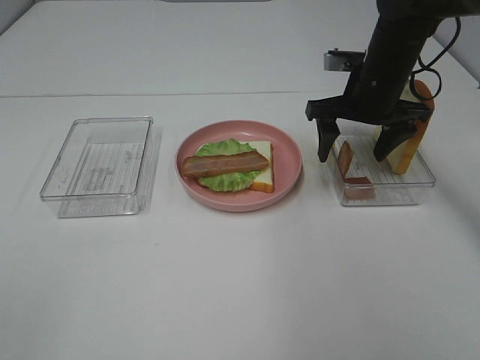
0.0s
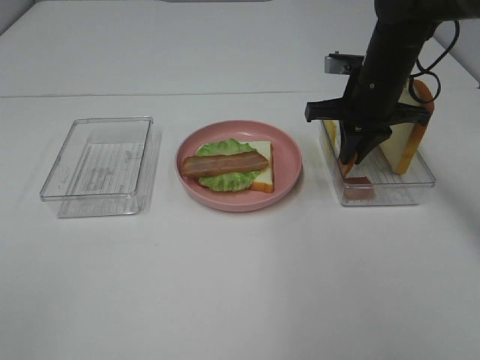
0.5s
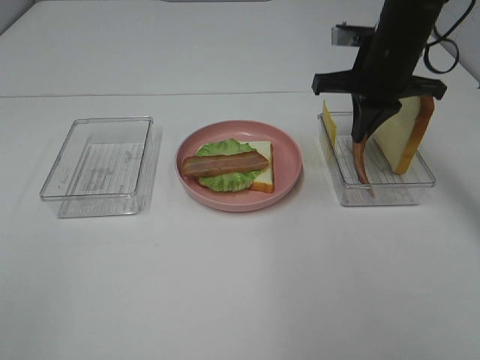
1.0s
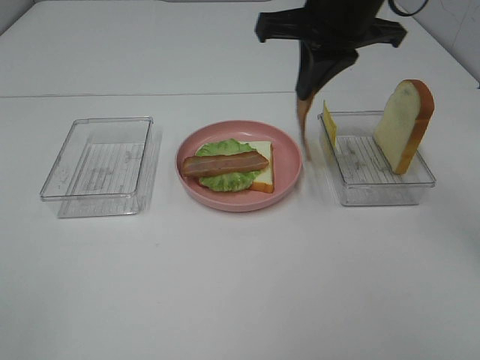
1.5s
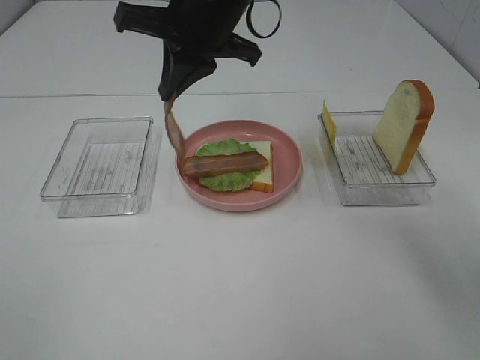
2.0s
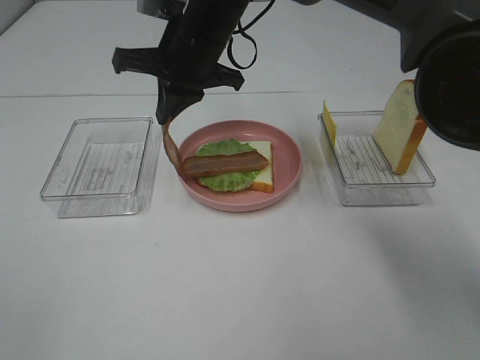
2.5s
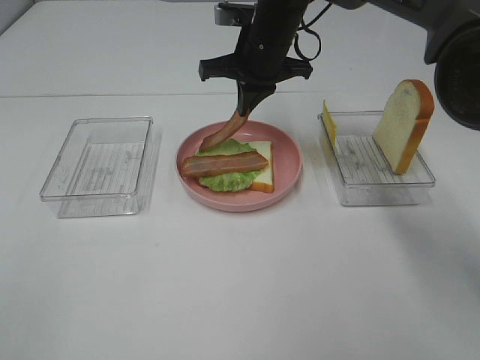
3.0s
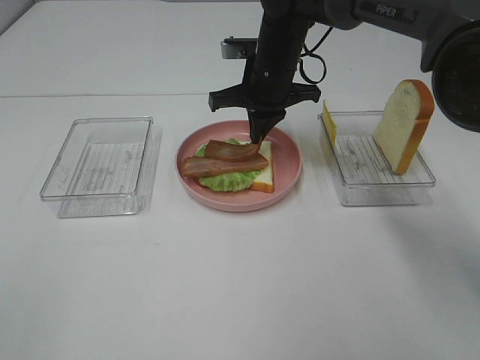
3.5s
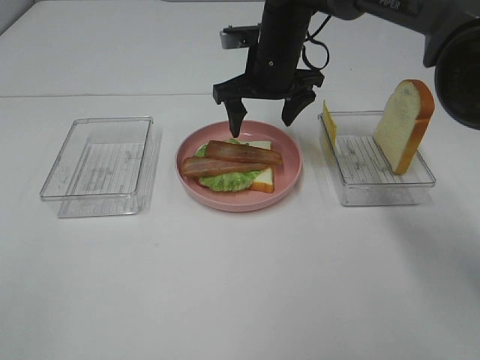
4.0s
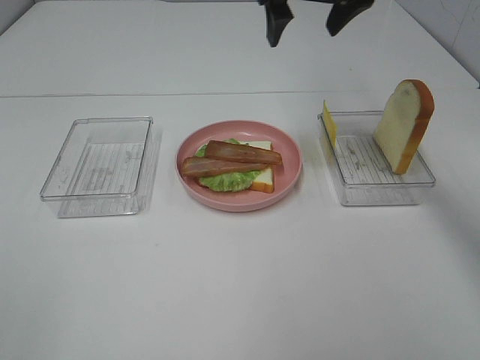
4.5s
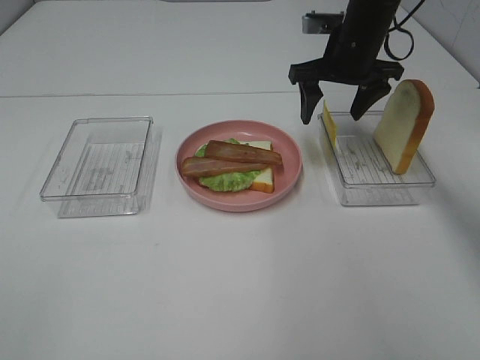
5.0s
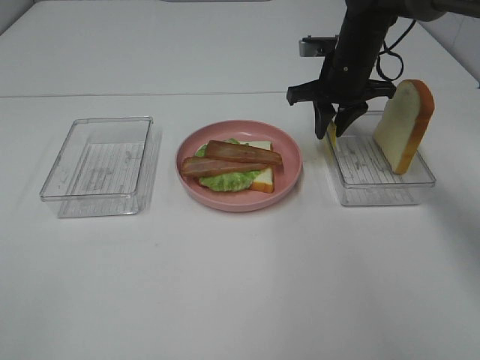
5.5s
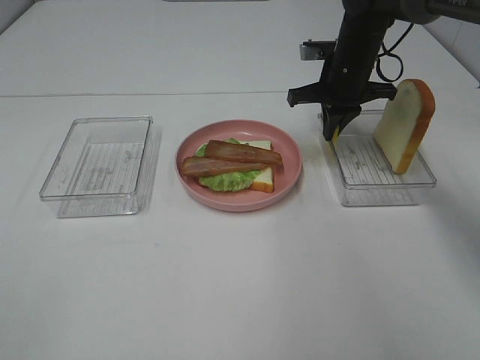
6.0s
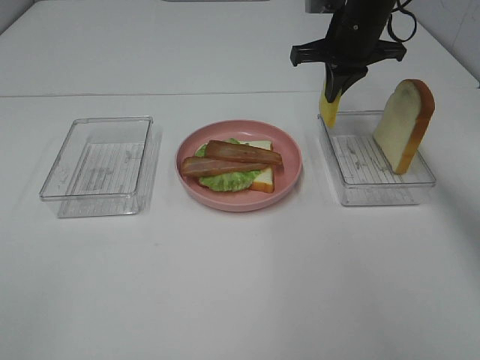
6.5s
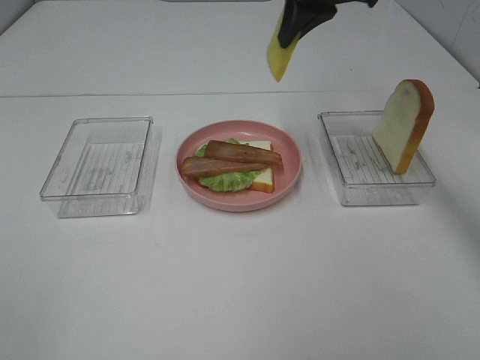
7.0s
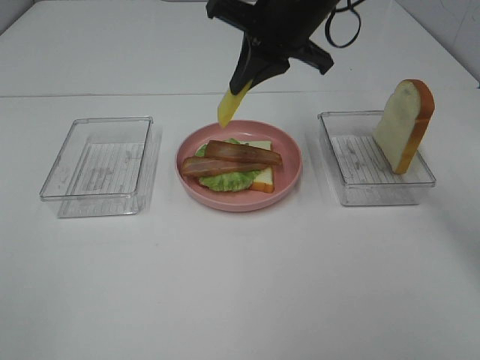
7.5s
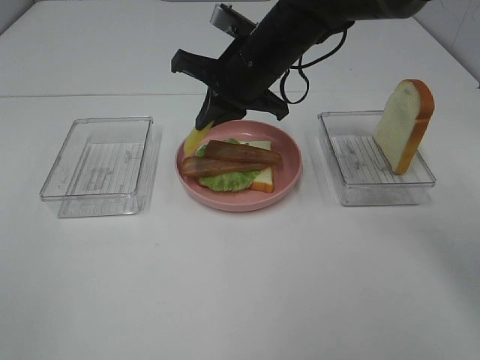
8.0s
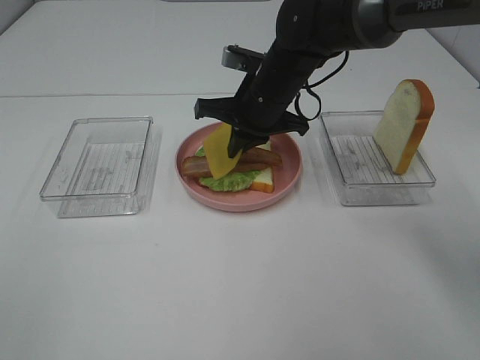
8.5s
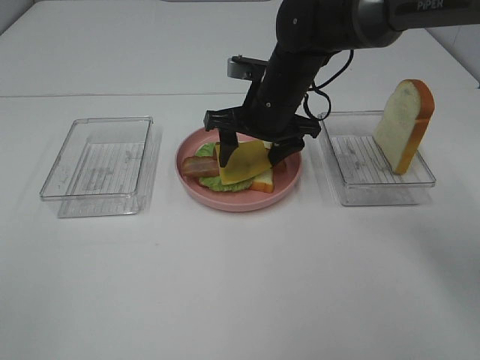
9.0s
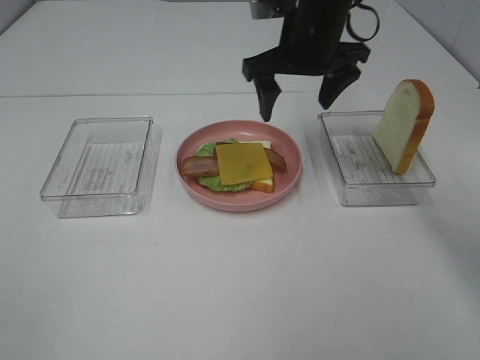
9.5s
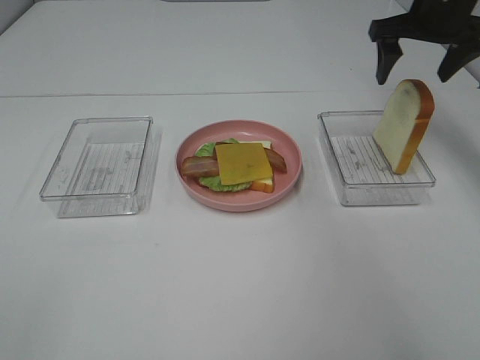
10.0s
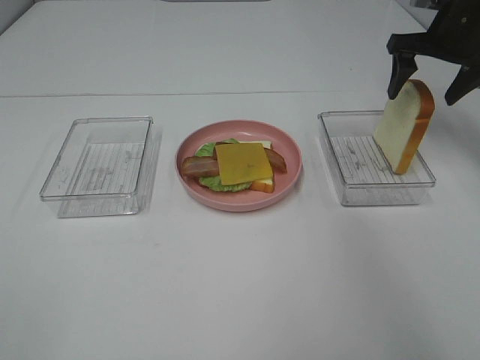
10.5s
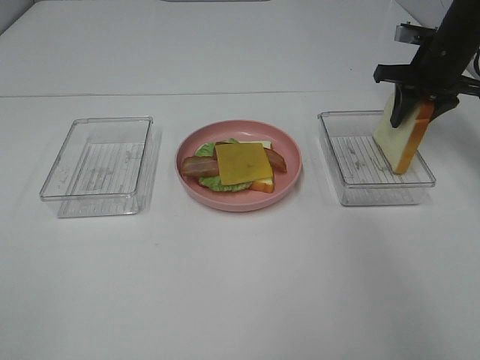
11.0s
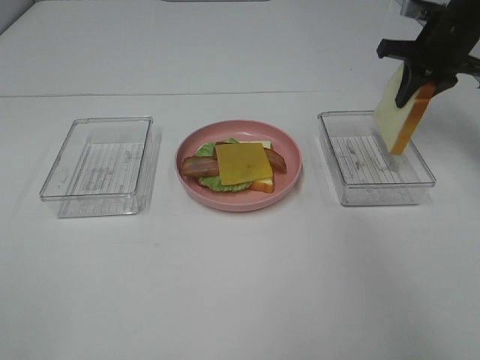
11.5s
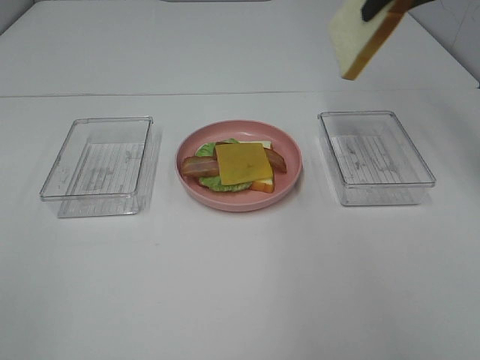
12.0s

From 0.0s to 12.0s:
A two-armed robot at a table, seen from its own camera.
Task of the whole recording: Make sandwiches.
Step, from 1.0s to 4.0s: Right hand:place bacon on bacon.
Step, from 4.5s to 5.5s: Right hand:grab the cheese slice.
Step, from 6.0s to 9.0s: Right hand:place the cheese slice on top of the bacon.
Step, from 9.5s to 11.0s: Right hand:grab the bread slice.
From 0.0s to 2.0s: The right gripper heads to the left and upward, covering about 25 cm, and closes up.
From 2.0s to 4.0s: The right gripper shifts some 15 cm downward, forward and to the right, and opens its fingers.
From 4.0s to 6.0s: The right gripper goes some 10 cm to the right, moves some 10 cm upward and comes back, and closes its fingers.
From 6.0s to 8.0s: The right gripper is displaced to the left and backward by about 15 cm, and travels upward and back again, roughly 15 cm each way.
From 8.0s to 10.0s: The right gripper heads to the right, covering approximately 25 cm, and opens its fingers.
From 10.0s to 12.0s: The right gripper goes about 10 cm upward, and closes.

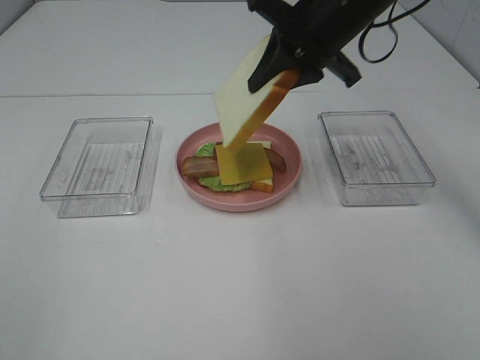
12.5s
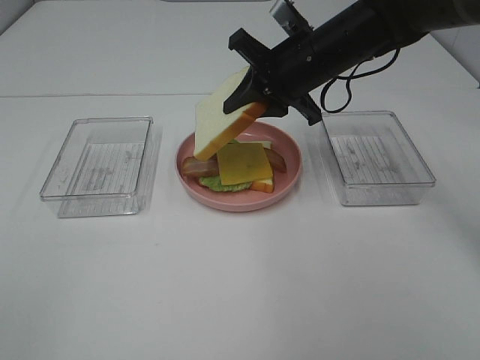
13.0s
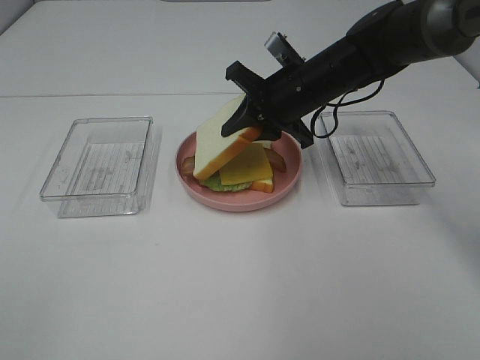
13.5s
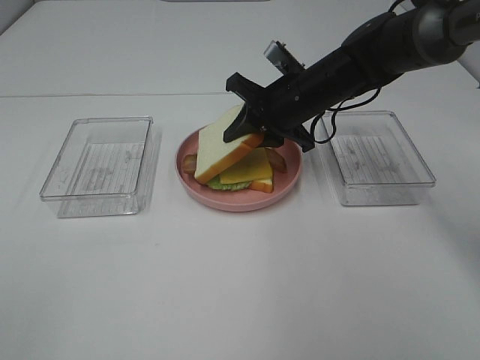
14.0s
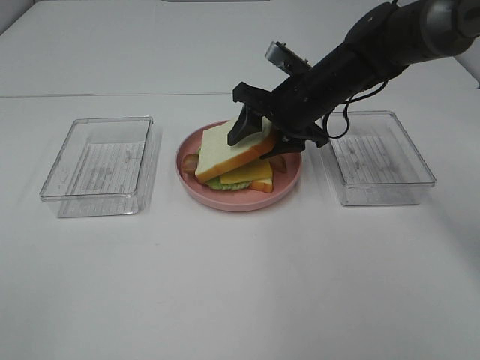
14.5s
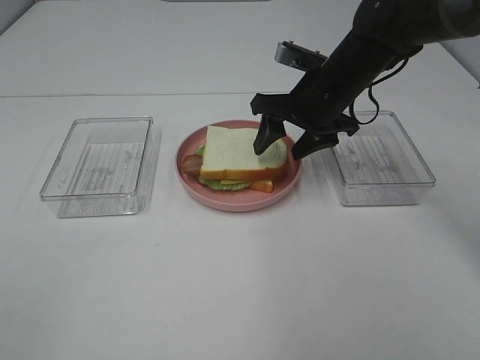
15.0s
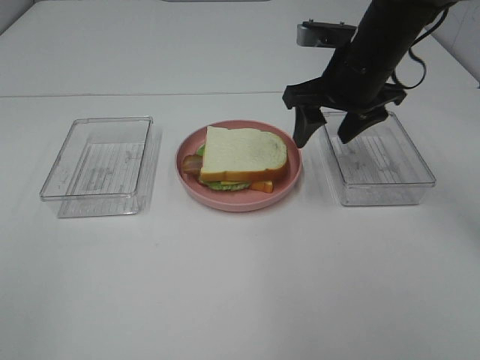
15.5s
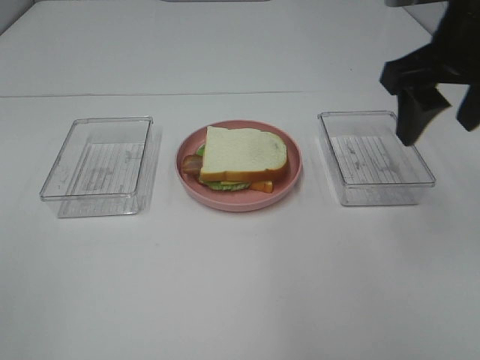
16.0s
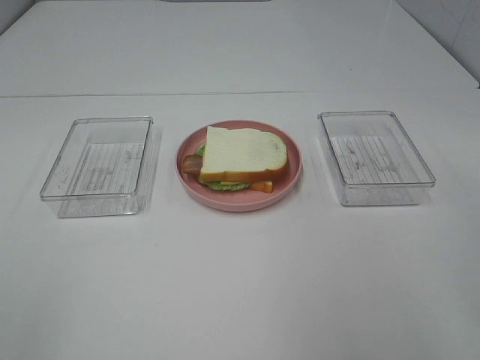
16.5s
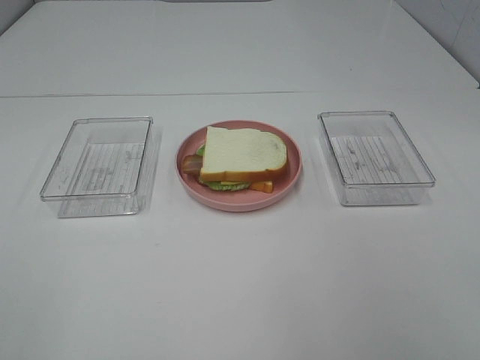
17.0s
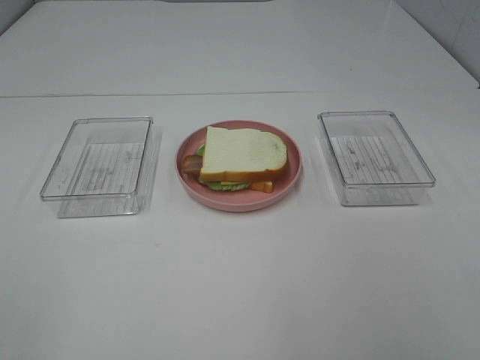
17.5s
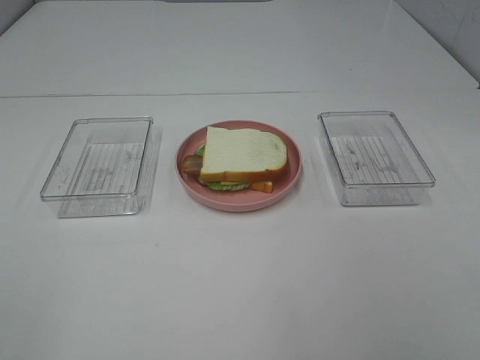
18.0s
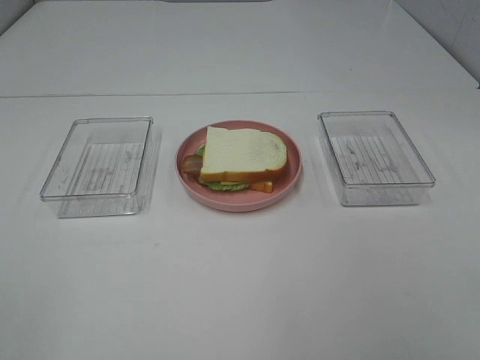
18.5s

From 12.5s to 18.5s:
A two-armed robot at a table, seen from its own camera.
Task of the whole recording: Make sandwiches.
Step, from 12.5s to 15.0s: Right hand:place the bread slice on the cheese slice.
From 12.5s to 14.5s: The right gripper is displaced downward by some 10 cm, and opens.
From 14.5s to 16.5s: The right gripper is displaced backward, upward and to the right by approximately 35 cm.

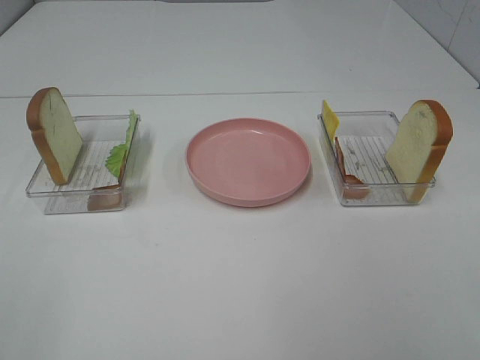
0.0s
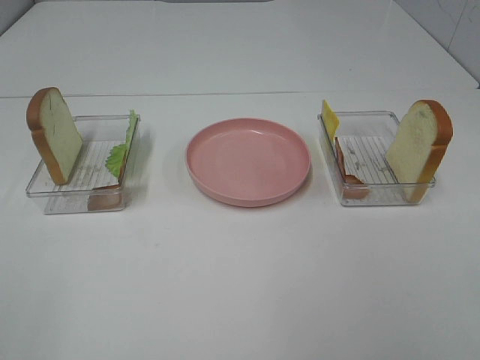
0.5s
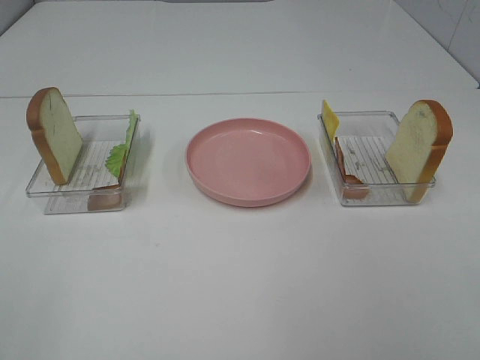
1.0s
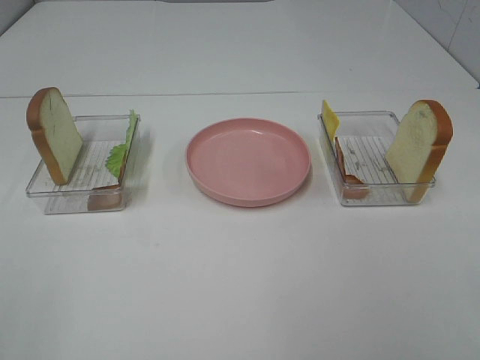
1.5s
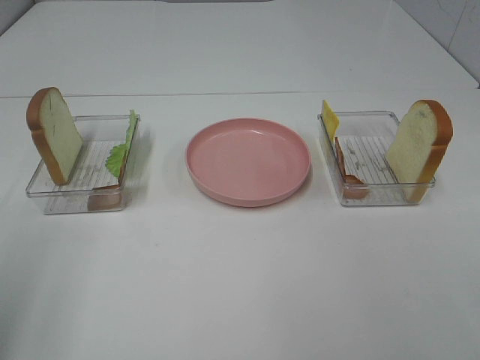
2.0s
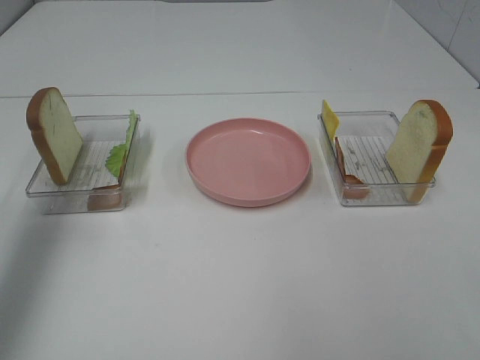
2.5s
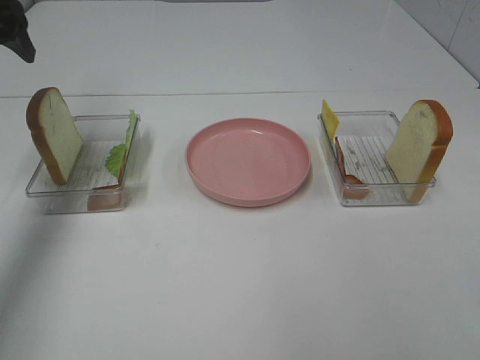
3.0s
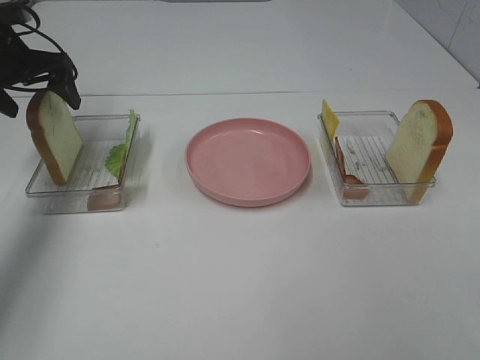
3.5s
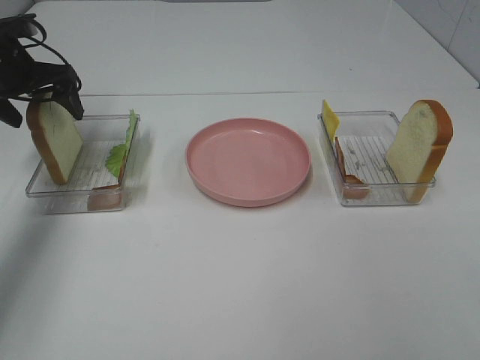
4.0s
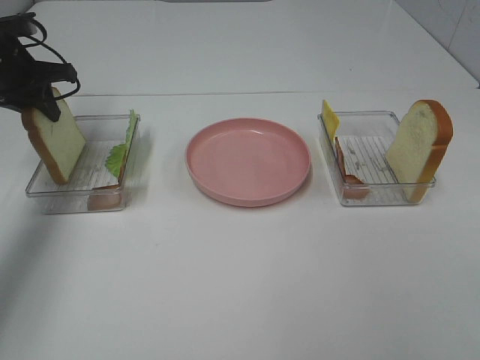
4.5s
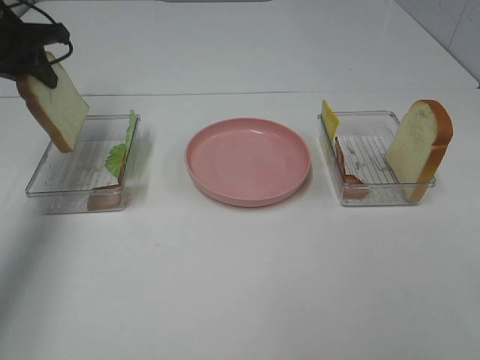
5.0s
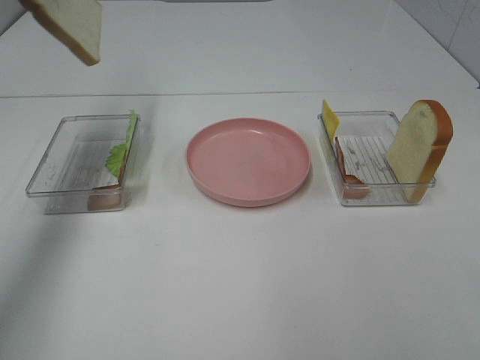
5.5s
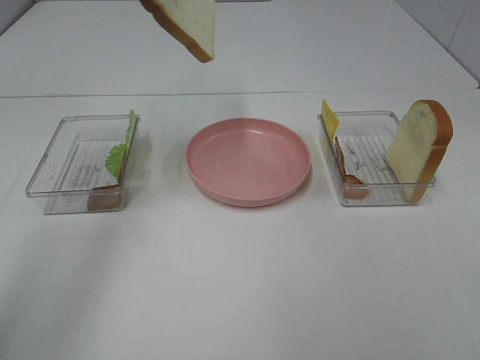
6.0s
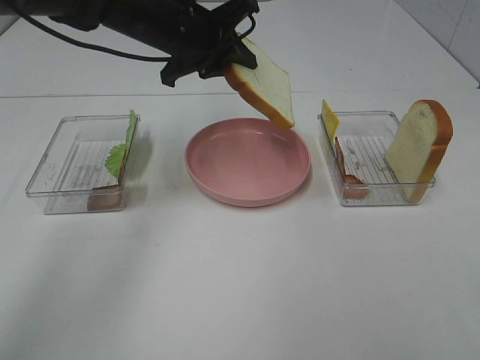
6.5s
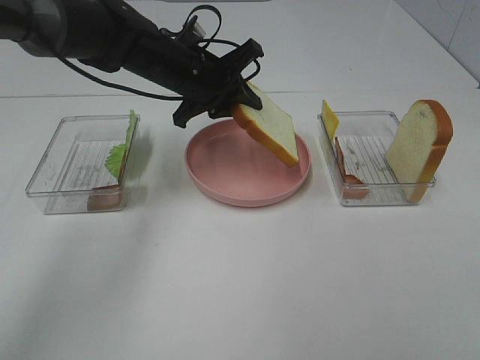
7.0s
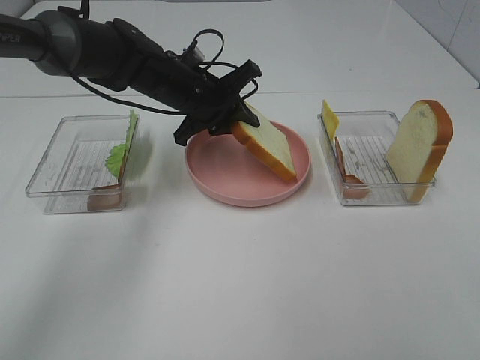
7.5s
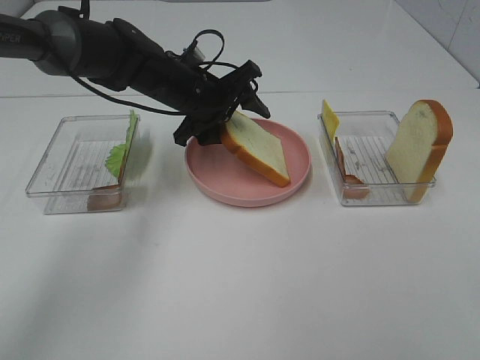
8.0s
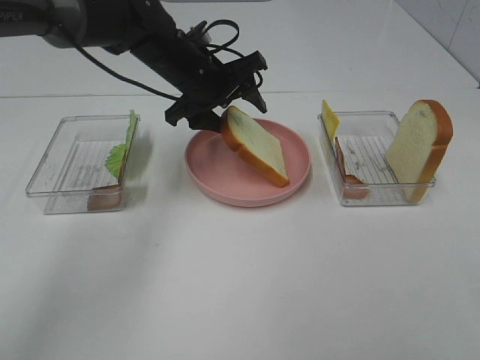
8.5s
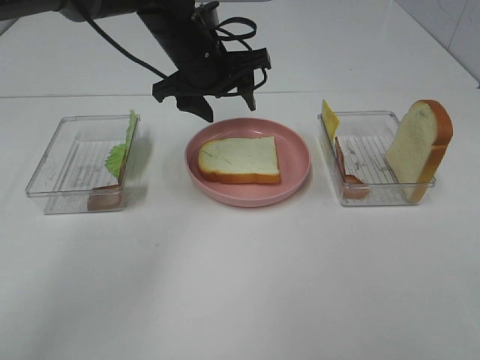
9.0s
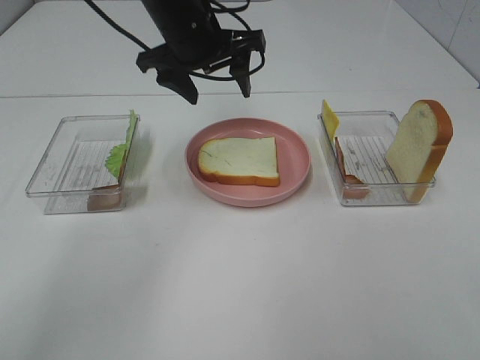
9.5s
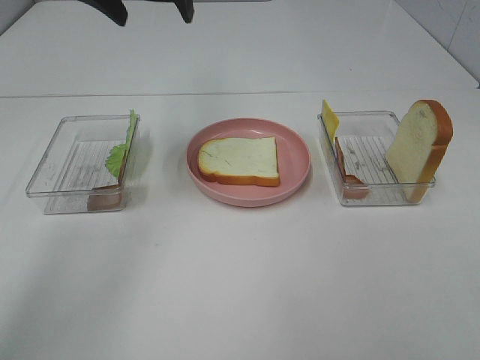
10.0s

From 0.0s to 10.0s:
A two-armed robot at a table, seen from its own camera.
Task of the whole recording: Make sandwiches.
Step, from 0.0s to 4.5s: Left hand:grab the bread slice.
Step, from 5.0s to 9.0s: Left hand:place the bread slice on the plate.
From 2.0s to 4.0s: The left gripper goes some 35 cm forward.
From 4.0s to 6.0s: The left gripper is displaced to the right and upward by roughly 20 cm, and closes.
From 6.0s to 8.0s: The left gripper shifts roughly 20 cm downward and to the right, and opens.
From 8.0s to 10.0s: The left gripper is displaced upward by approximately 20 cm.
